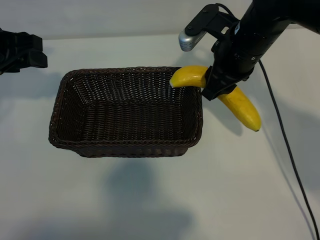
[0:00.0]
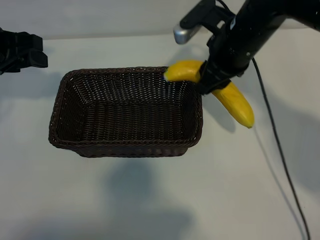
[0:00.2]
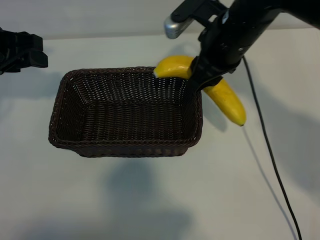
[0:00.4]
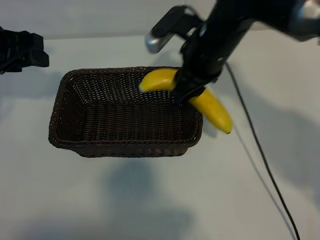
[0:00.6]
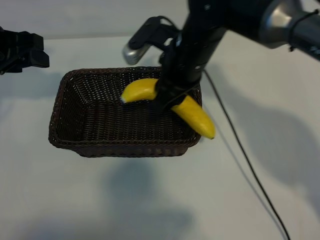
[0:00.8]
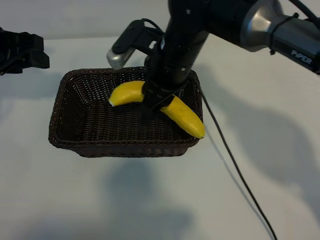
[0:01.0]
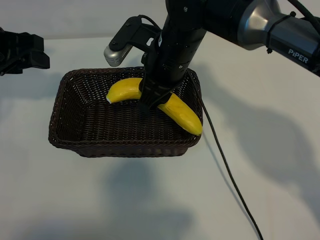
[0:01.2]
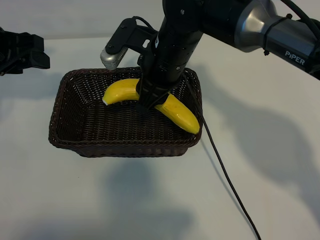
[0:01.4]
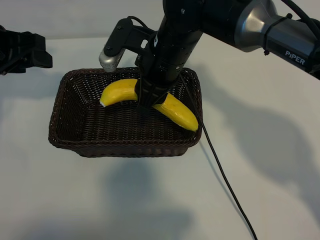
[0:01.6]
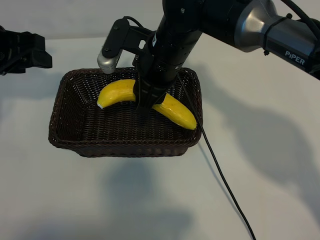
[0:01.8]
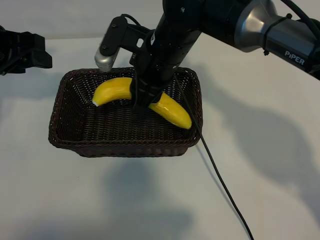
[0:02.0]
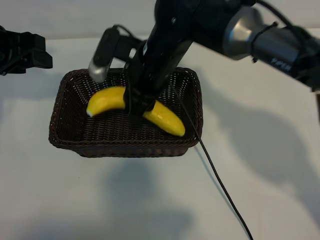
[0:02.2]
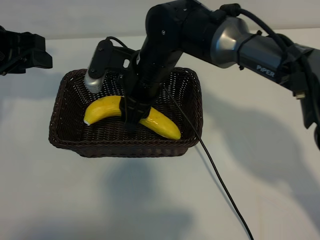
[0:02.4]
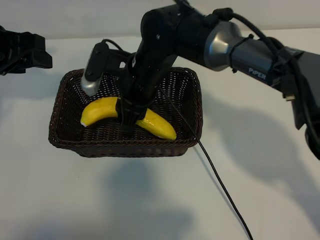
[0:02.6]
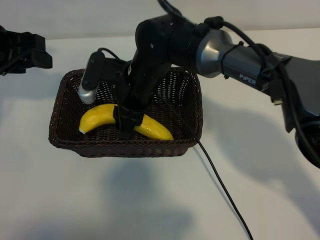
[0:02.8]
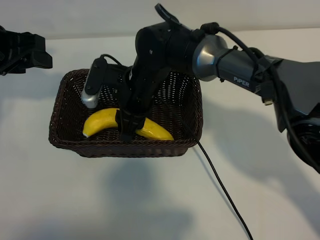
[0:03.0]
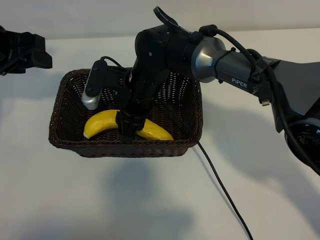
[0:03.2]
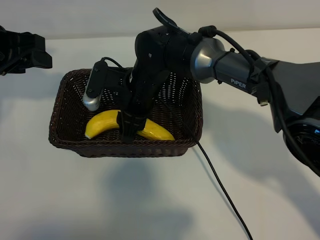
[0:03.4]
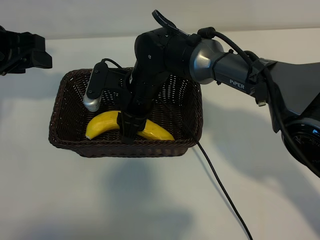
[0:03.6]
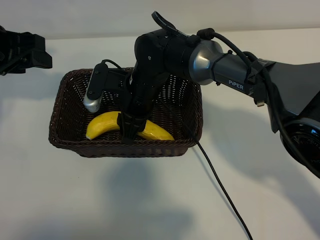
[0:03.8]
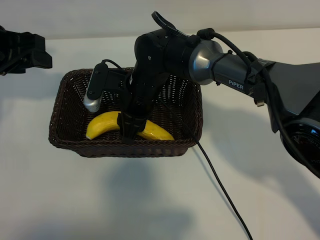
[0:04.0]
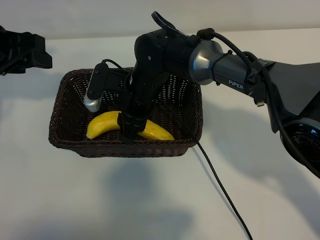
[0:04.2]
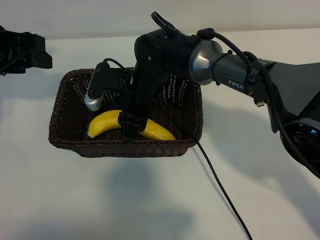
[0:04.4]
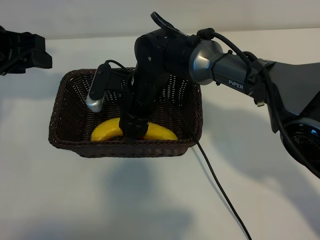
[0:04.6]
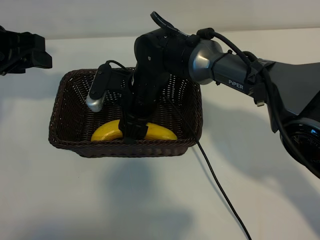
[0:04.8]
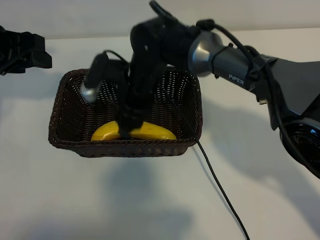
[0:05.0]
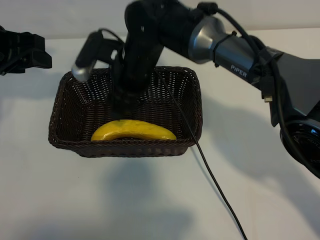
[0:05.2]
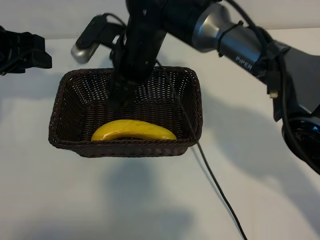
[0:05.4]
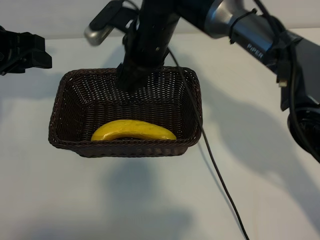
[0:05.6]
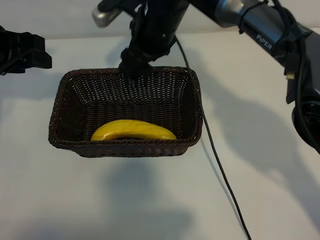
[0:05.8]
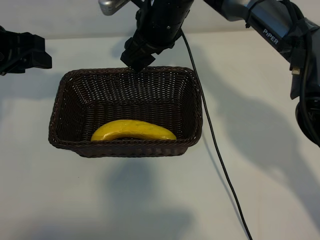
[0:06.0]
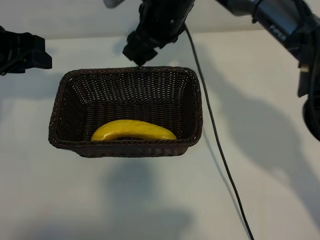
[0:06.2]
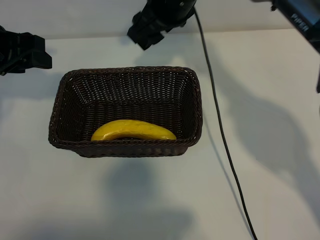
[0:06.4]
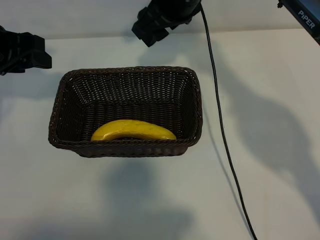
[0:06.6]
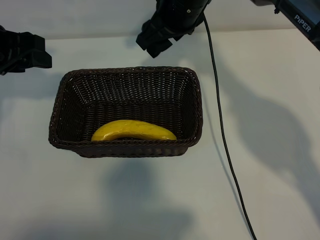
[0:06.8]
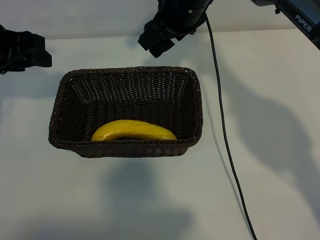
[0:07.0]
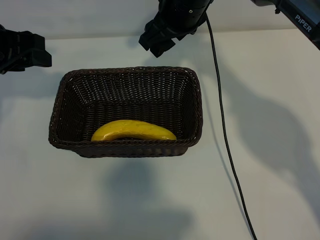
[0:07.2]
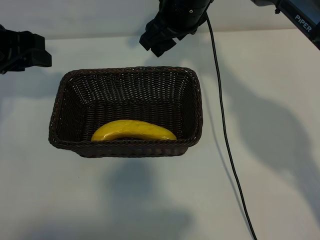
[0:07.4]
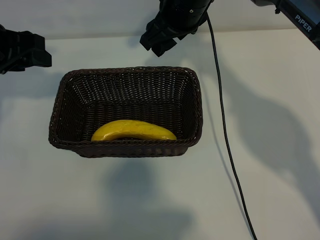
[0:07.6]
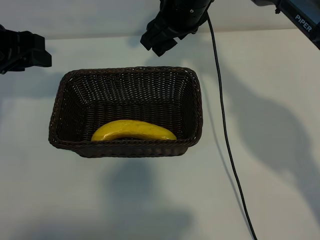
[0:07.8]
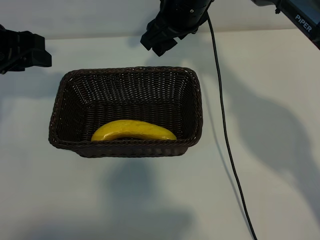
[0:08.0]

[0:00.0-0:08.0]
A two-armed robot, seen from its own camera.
Task of the whole recording: pick up the banana and put it into the basket.
Step, 0:00.0 to 0:05.2: Place the banana in the basket with right gripper.

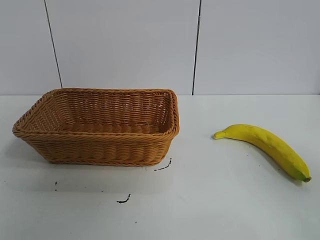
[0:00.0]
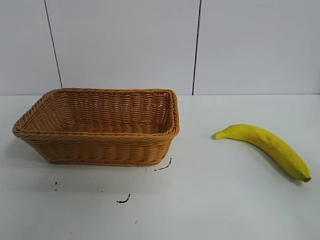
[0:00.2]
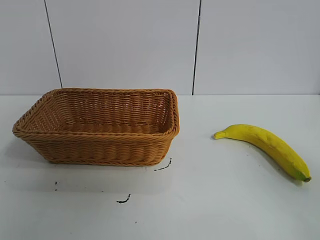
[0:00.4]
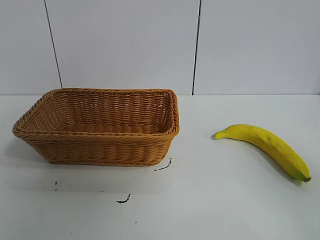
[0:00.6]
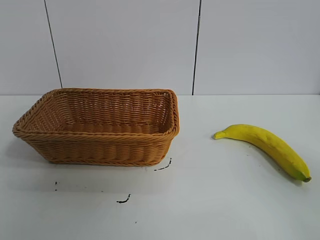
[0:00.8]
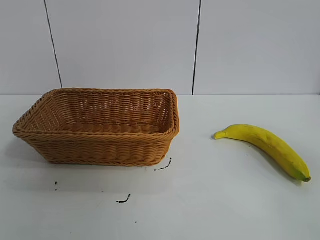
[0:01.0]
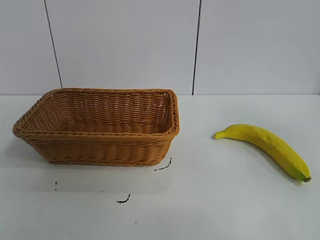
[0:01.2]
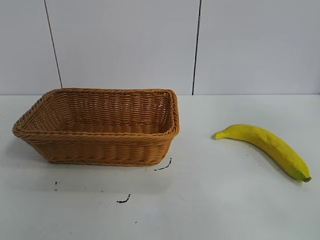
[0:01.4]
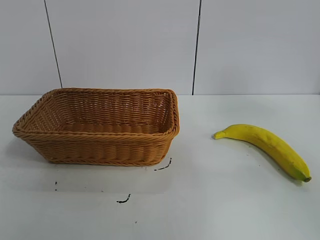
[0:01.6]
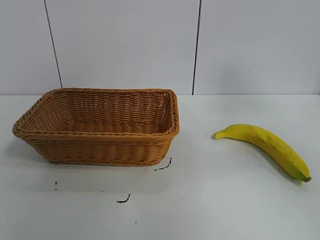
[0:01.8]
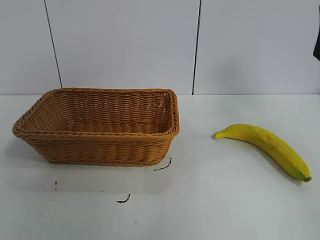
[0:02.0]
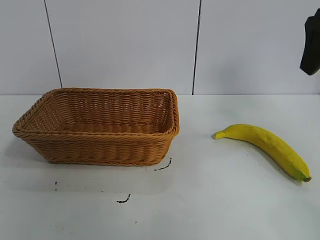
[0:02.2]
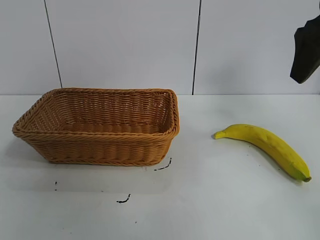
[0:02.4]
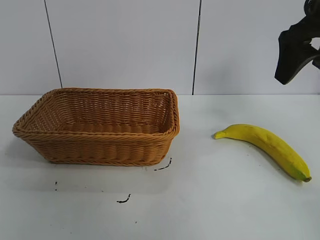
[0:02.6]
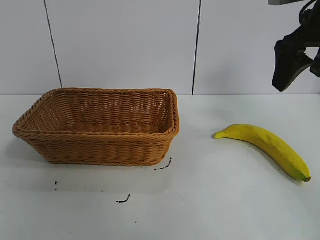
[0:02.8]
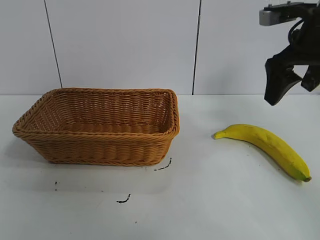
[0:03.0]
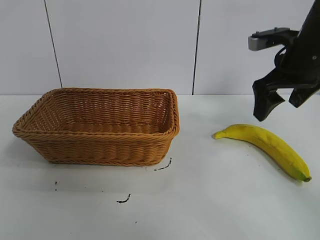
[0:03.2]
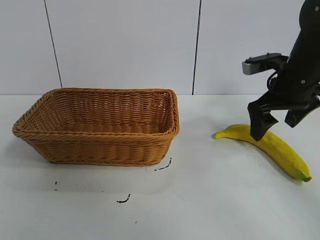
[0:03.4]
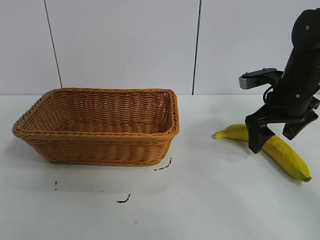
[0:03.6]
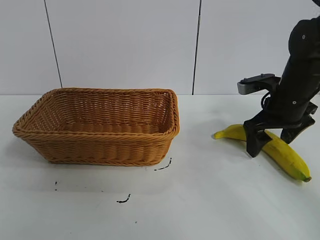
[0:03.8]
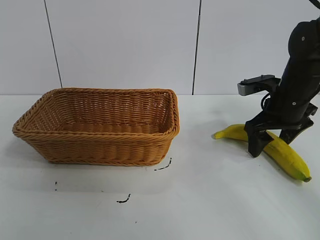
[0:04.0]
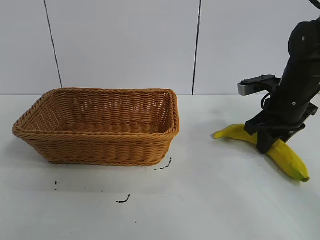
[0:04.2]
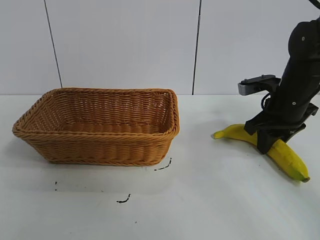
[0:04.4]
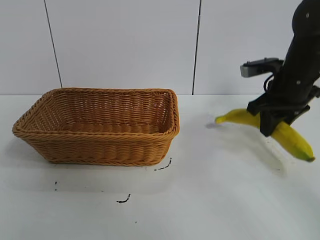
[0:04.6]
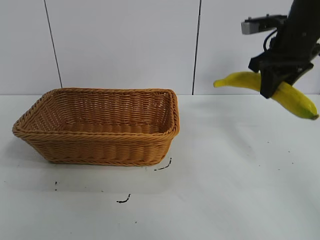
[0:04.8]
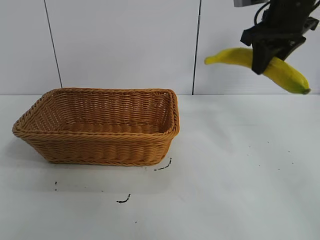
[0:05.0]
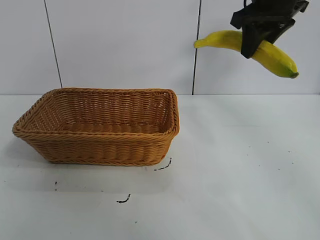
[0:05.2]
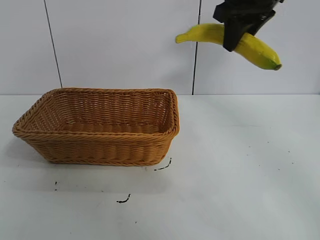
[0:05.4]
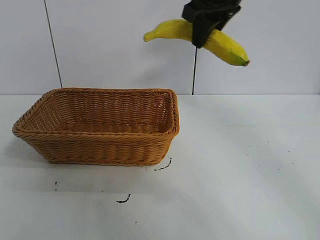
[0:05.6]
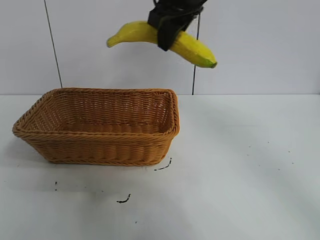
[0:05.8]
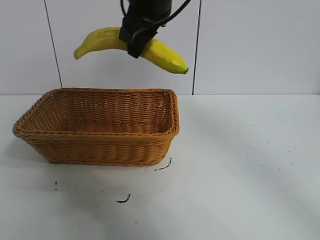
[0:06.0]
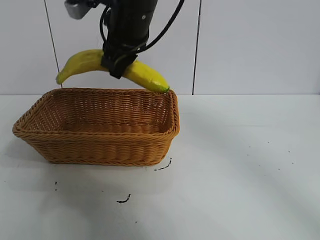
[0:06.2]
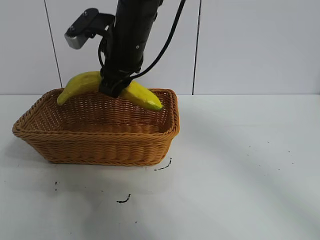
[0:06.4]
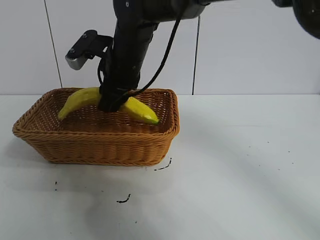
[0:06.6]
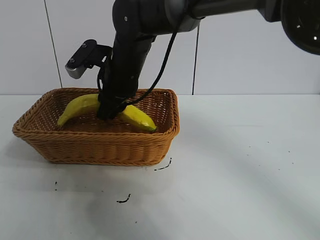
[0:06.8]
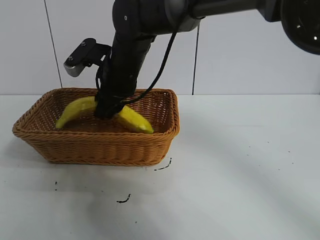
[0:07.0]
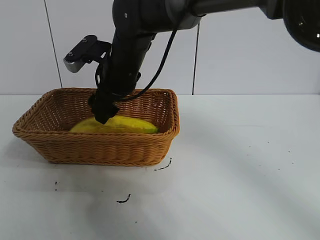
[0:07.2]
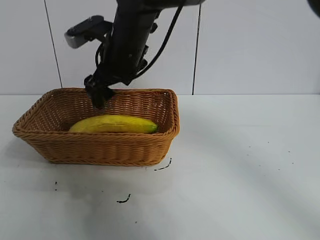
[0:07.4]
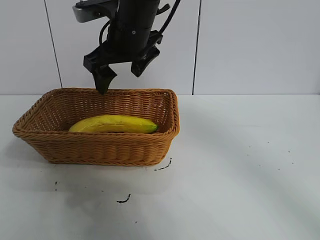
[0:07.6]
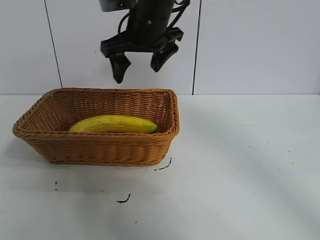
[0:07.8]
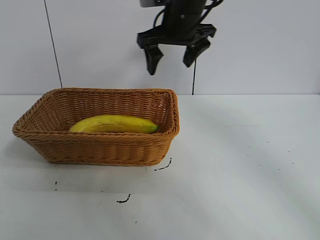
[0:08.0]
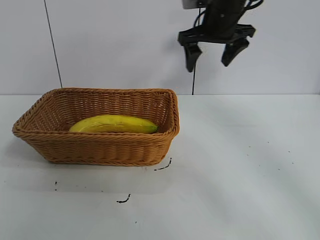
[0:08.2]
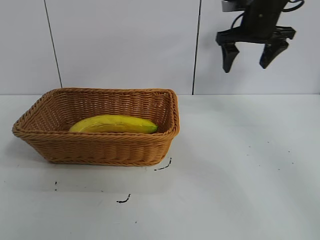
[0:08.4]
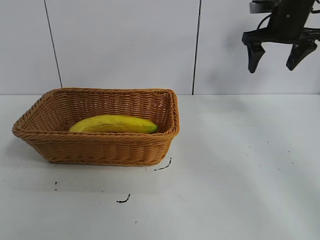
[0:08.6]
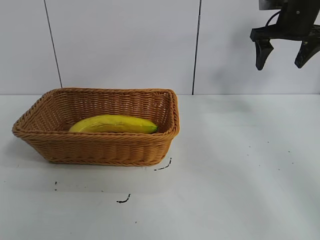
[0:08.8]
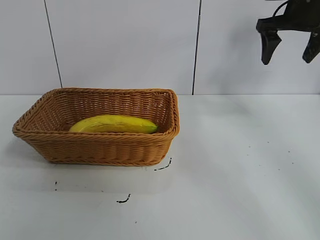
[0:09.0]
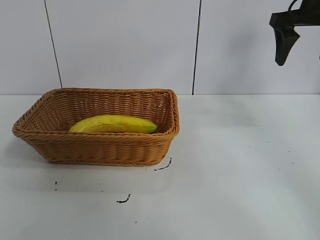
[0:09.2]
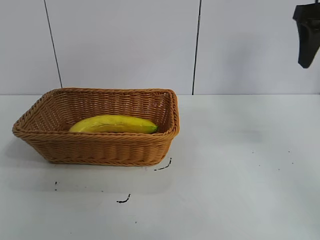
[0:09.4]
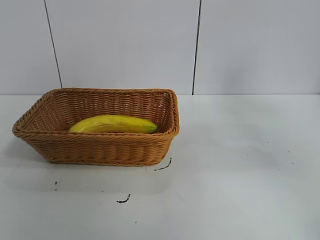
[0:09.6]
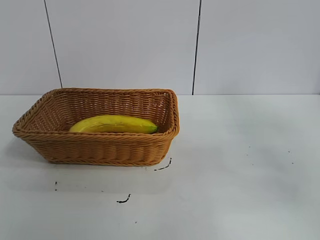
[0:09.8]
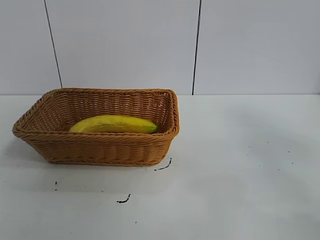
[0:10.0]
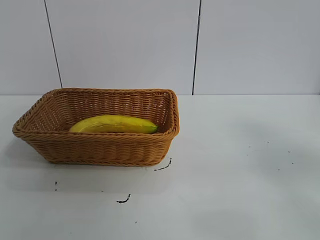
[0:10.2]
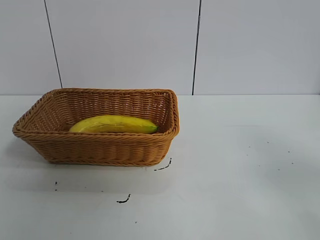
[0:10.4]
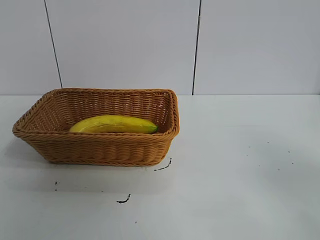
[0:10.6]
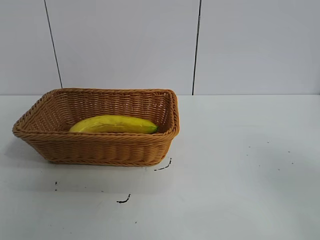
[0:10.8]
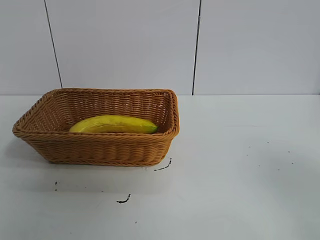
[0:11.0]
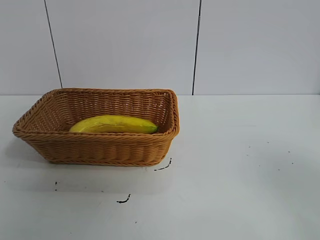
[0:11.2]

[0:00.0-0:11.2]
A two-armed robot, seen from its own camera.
Task of the whole recording: pick up the banana and put it into the basket.
Step, 0:00.8 to 0:04.2: Grasp the banana with right gripper.
Step, 0:04.4 to 0:07.2: Place the banana in the basket with right gripper.
